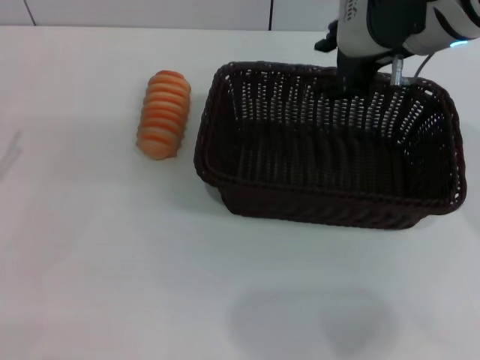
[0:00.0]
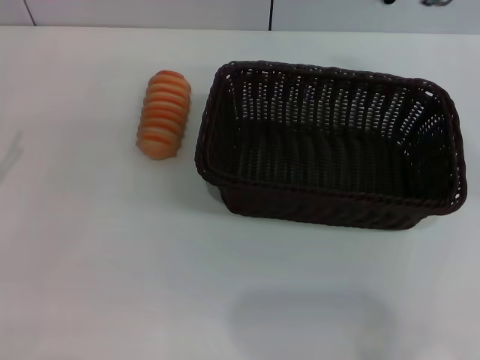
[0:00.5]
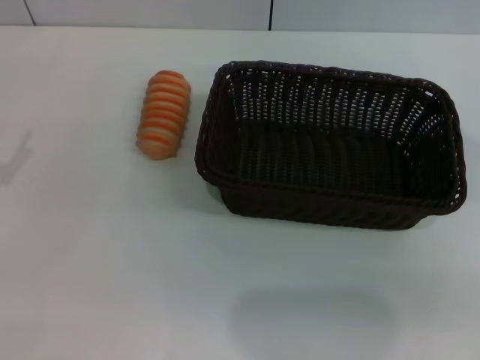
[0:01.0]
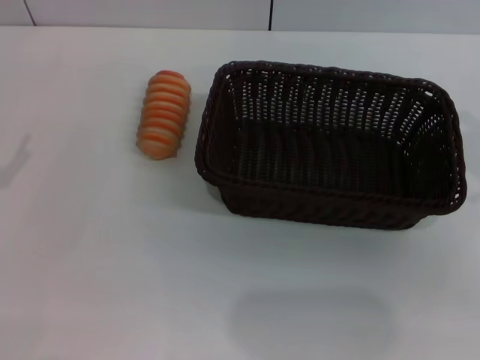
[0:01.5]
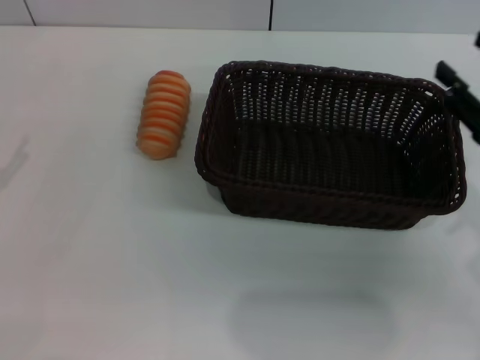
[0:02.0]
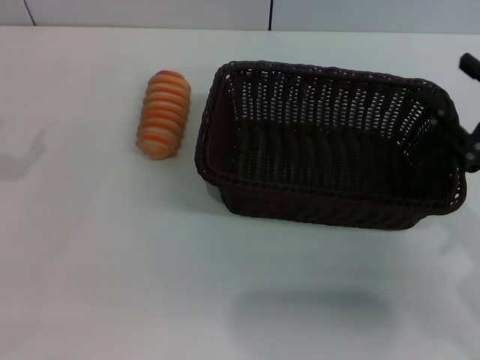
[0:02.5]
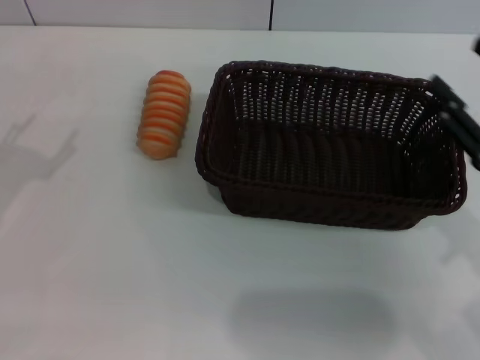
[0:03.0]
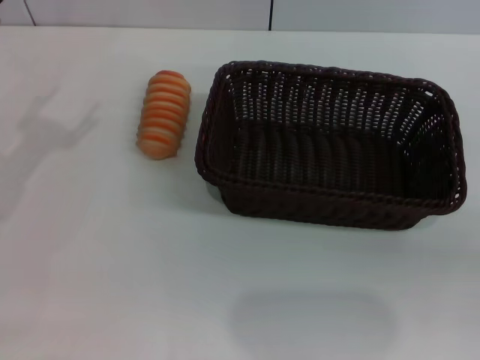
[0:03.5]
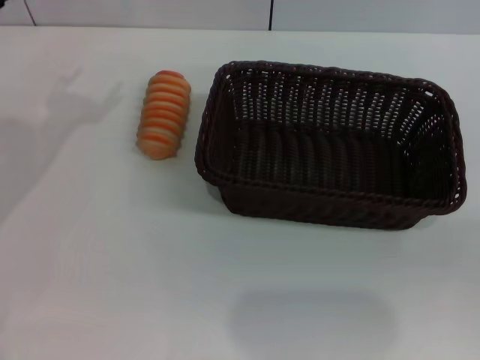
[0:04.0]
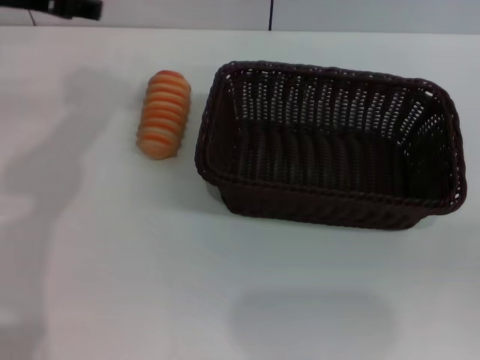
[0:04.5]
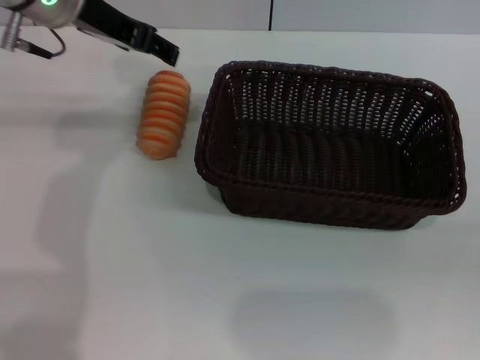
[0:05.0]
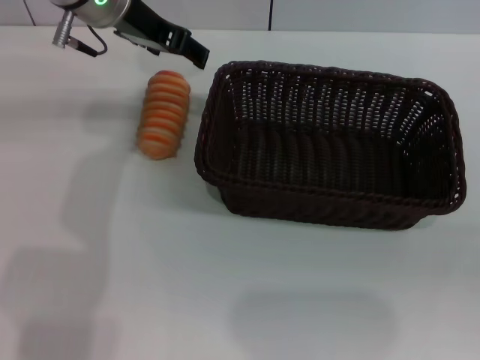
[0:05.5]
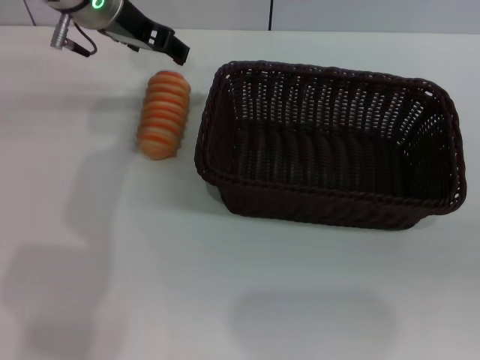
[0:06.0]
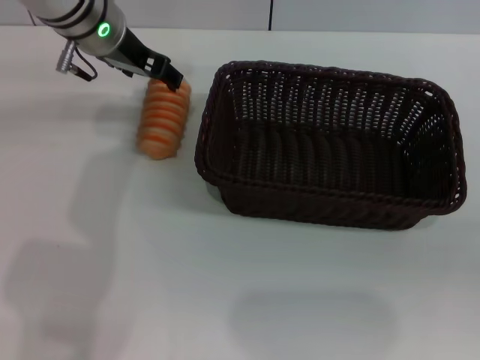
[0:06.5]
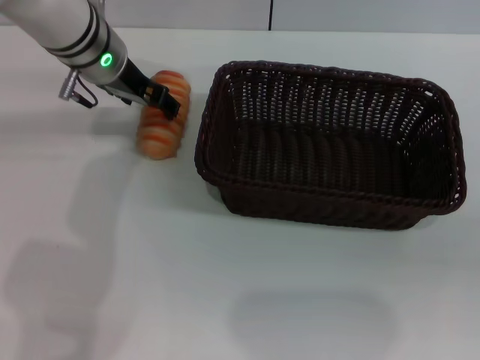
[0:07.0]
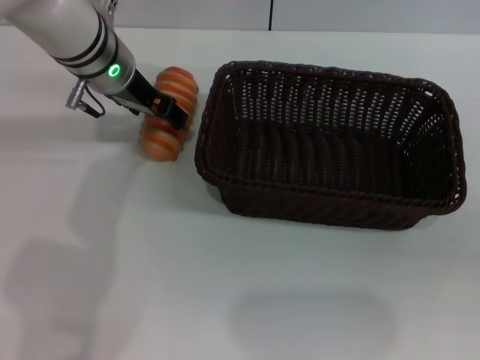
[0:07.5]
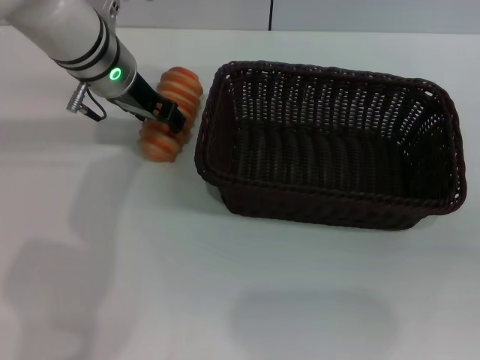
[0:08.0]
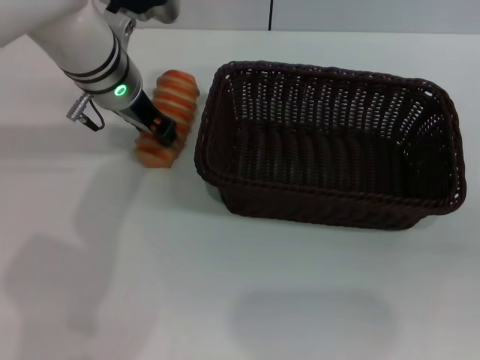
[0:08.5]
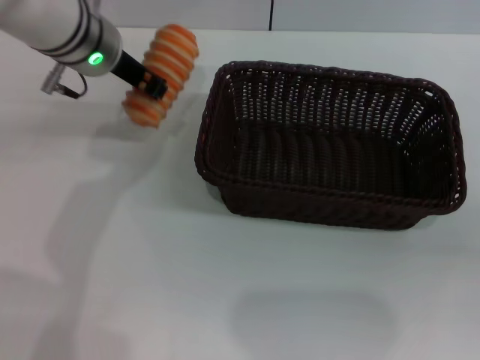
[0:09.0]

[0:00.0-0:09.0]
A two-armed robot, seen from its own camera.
Step, 0:00.5 to 0:08.5: Pick up the long bread with the left gripper.
0:00.0 to 0:02.0: The right gripper heads backward, to the right and downward, covering about 20 cm.
0:02.0 to 0:04.5: The left gripper heads forward, to the right and upward, covering approximately 25 cm. Meanwhile the right gripper moves backward and to the right, approximately 20 cm.
0:04.5 to 0:07.0: The left gripper travels downward, to the right and forward by roughly 15 cm.
0:07.0 to 0:09.0: The left gripper closes its fingers.

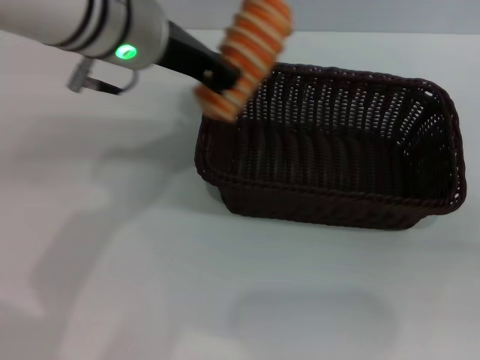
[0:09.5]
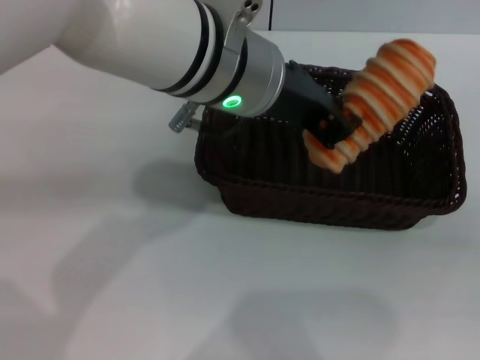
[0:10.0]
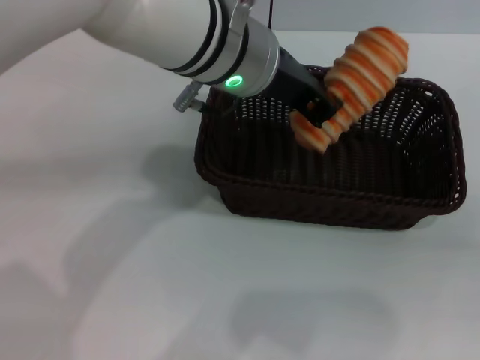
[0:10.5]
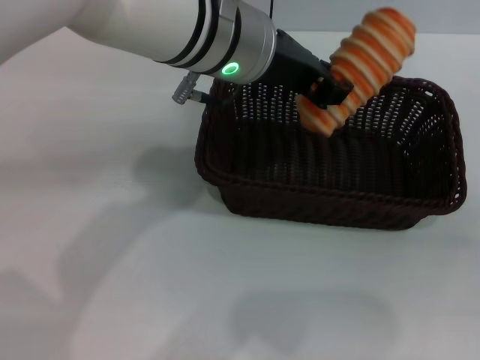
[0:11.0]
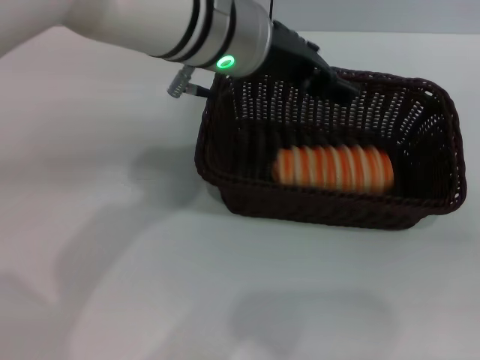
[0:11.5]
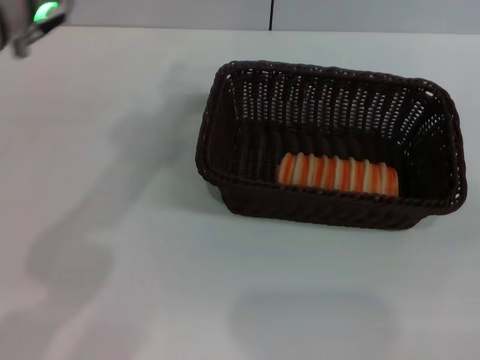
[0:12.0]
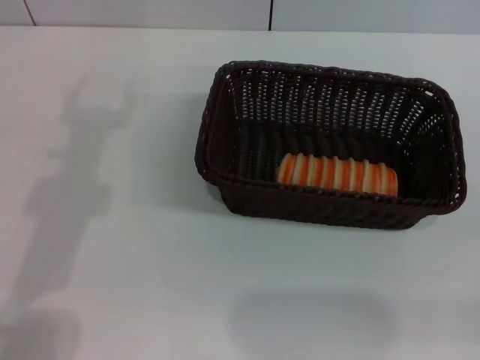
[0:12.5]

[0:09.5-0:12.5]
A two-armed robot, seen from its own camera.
Step, 0:09.5 to 0:11.0: Place the long bread into the dark basket with the left gripper.
0:09.5 to 0:11.0: The left gripper heads to the right, covering approximately 5 cm.
0:11.0 to 0:12.5: The left gripper travels to the left and backward by approximately 20 cm, and opens.
